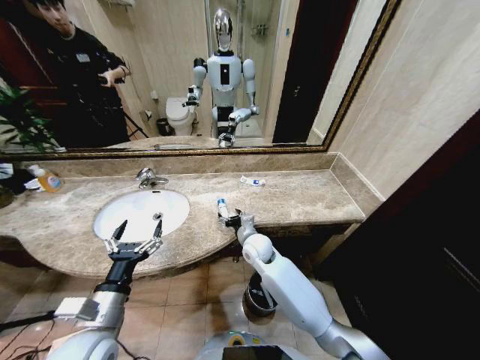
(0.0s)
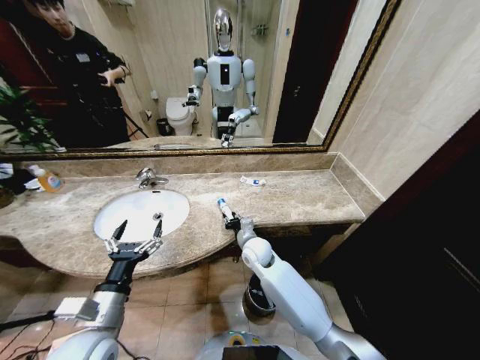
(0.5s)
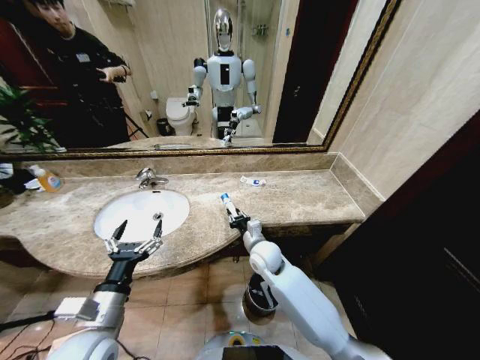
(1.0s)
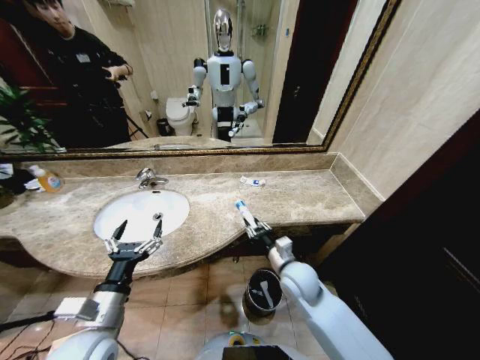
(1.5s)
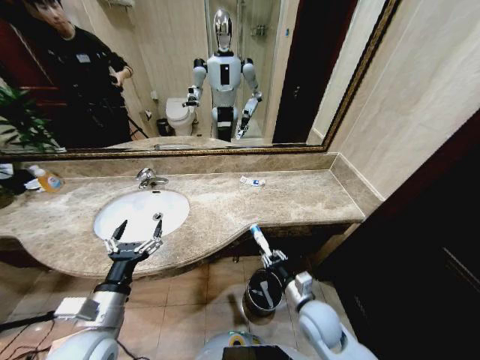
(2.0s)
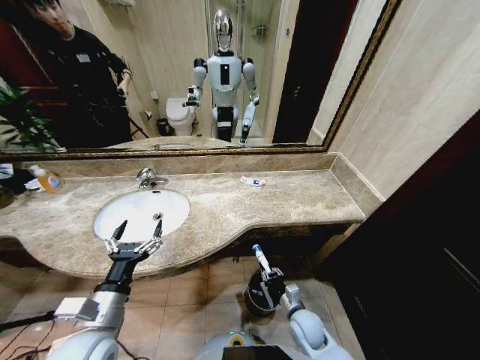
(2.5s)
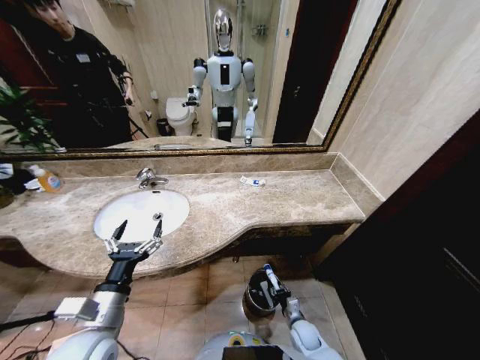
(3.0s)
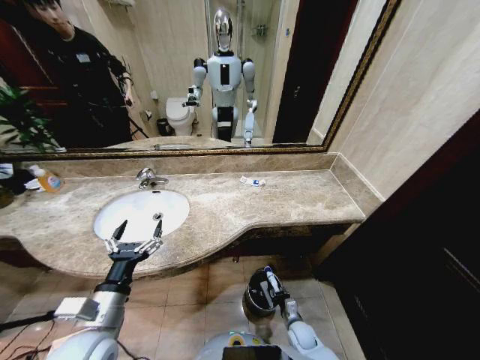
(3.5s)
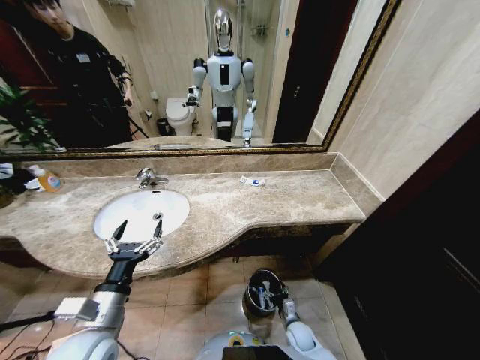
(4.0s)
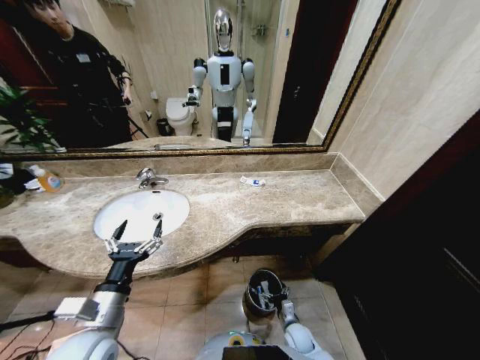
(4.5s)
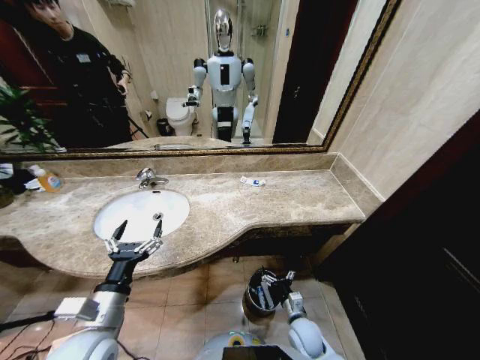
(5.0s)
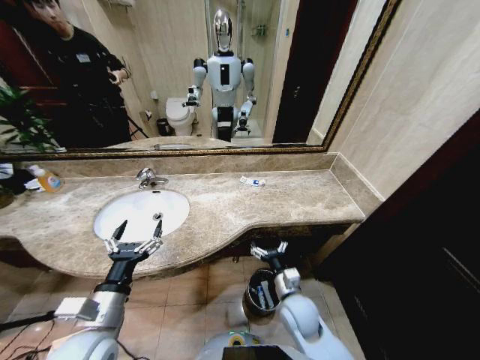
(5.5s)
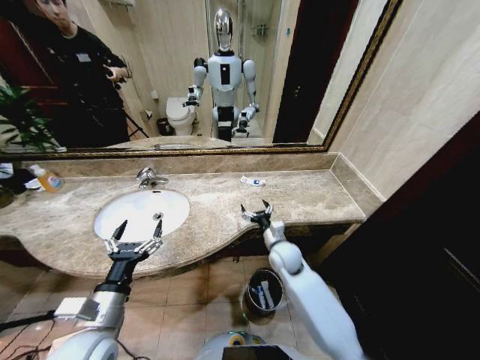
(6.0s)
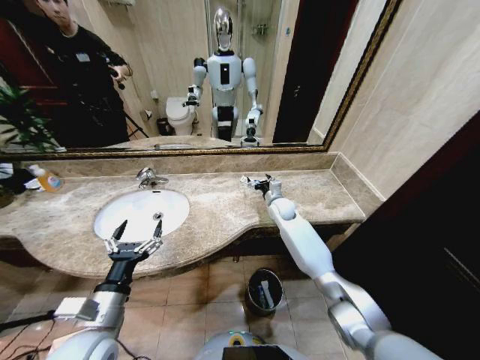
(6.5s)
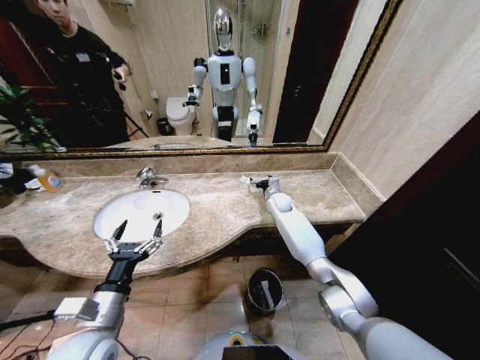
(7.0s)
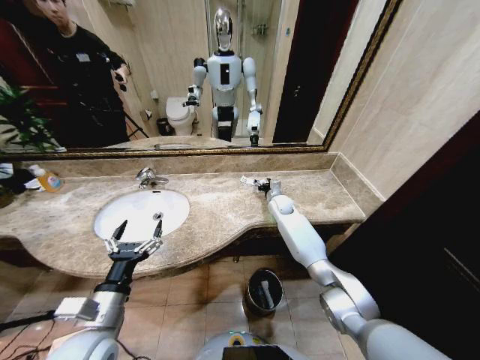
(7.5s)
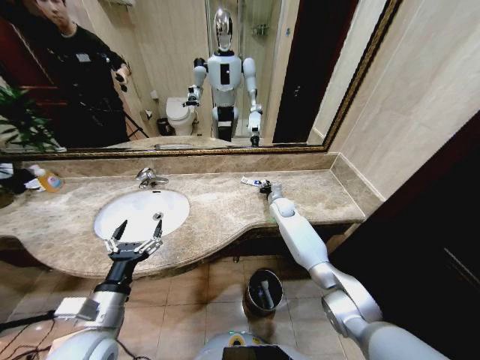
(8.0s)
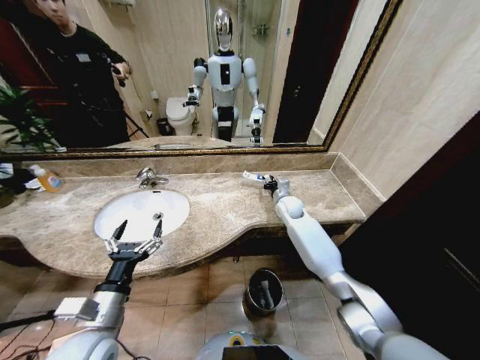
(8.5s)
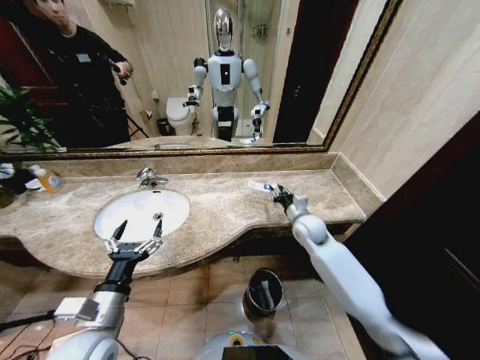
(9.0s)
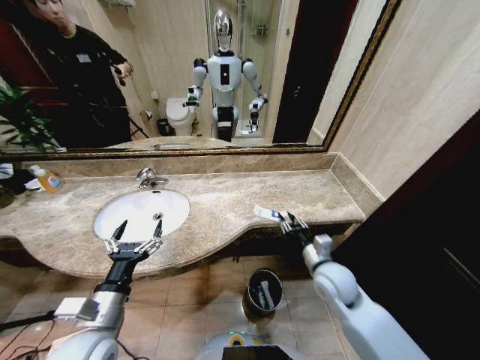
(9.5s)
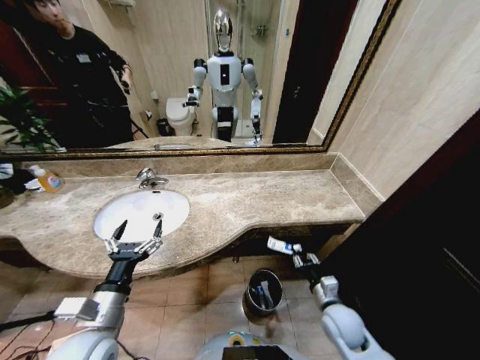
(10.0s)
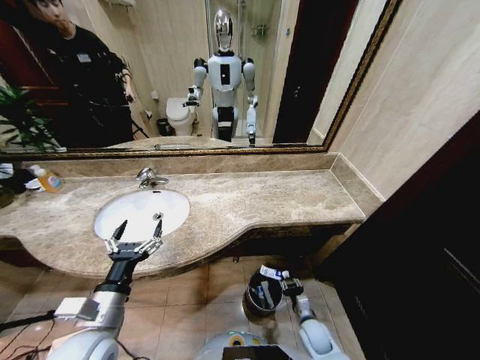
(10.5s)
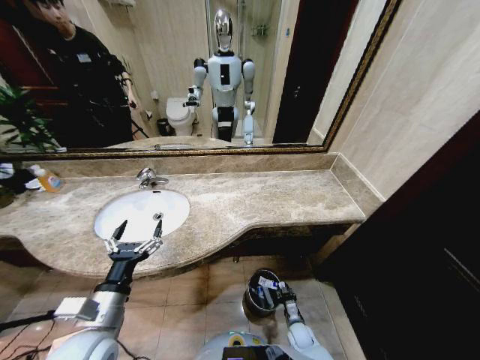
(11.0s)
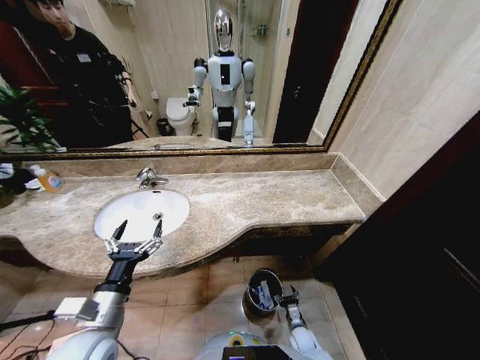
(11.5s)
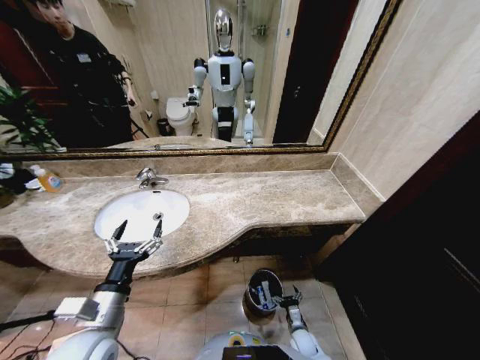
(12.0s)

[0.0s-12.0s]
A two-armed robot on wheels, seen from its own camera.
Task of the whole recording: Pick up the trash from the sink and place it in the trash bin.
0.0s to 2.0s: The right gripper shifts roughly 25 cm backward and to the right, and closes up.
2.0s to 4.0s: The right gripper is displaced downward by some 25 cm, and opens up.
4.0s to 6.0s: The right gripper moves upward and forward, about 35 cm.
6.0s to 8.0s: The right gripper goes approximately 20 cm forward, and closes.
8.0s to 10.0s: The right gripper is displaced backward by about 35 cm.
10.0s to 12.0s: The right gripper shifts some 25 cm downward, and opens up.

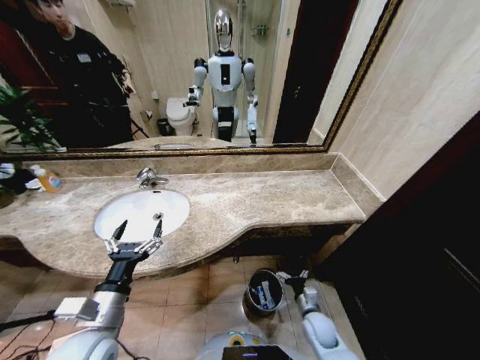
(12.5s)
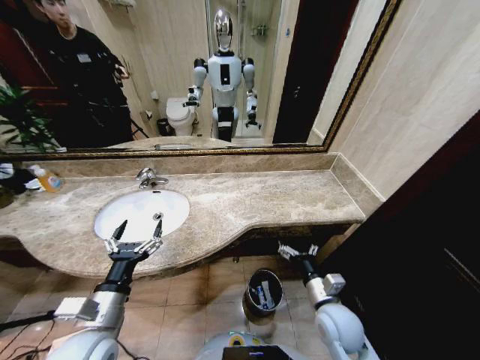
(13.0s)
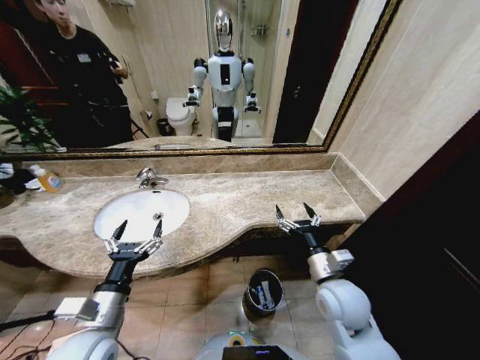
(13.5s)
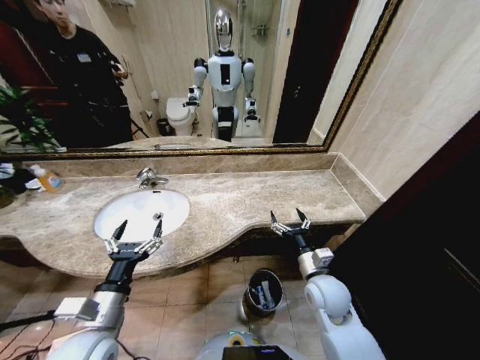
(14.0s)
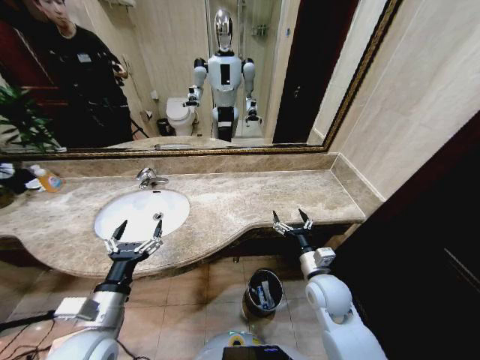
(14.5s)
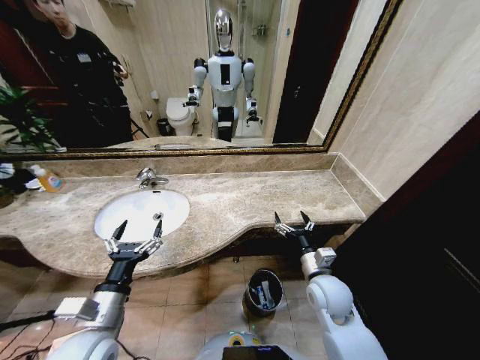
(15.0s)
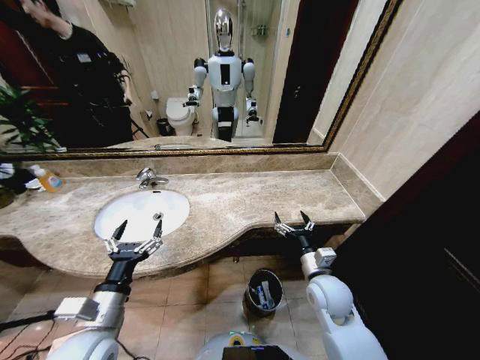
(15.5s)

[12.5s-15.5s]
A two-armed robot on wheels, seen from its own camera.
Task of the whole recording: Pick up the trash from the sink and place it in the trash bin.
12.5s to 14.0s: The right gripper moves upward, roughly 20 cm.
14.0s to 15.5s: Both grippers stay about where they are.

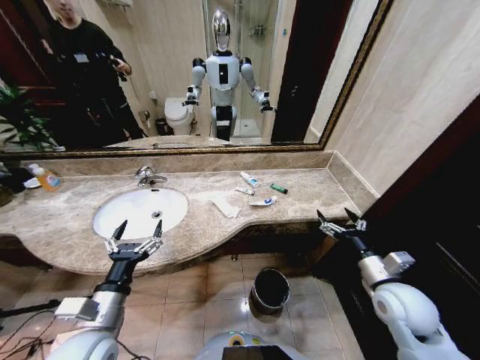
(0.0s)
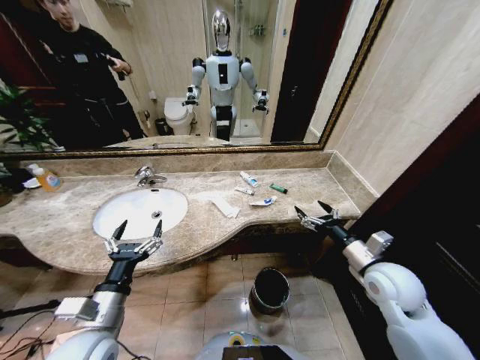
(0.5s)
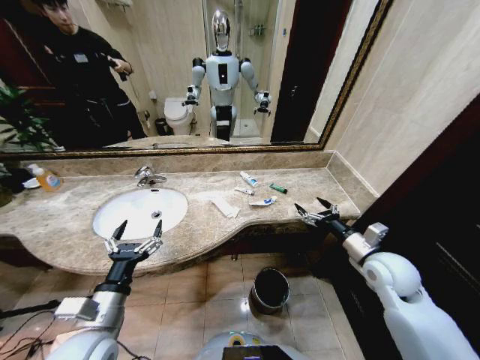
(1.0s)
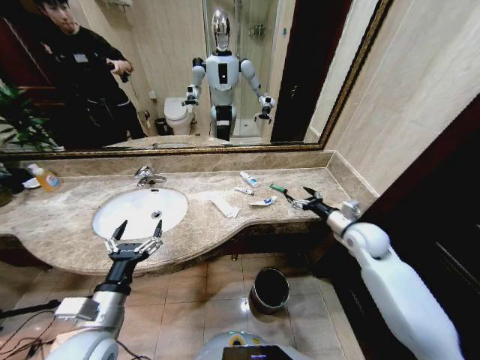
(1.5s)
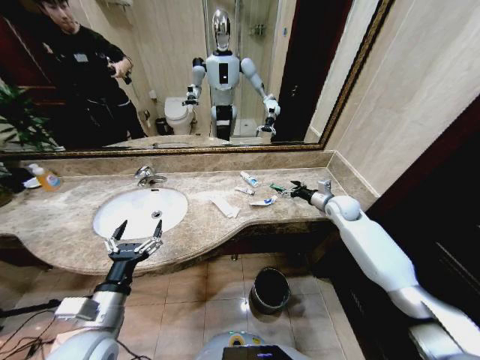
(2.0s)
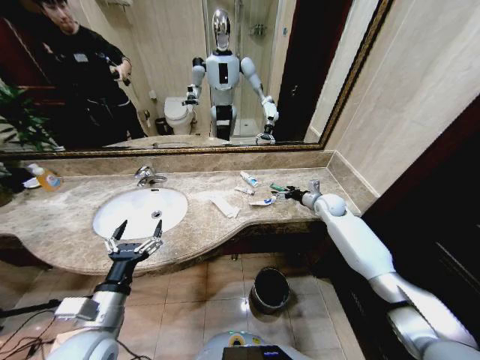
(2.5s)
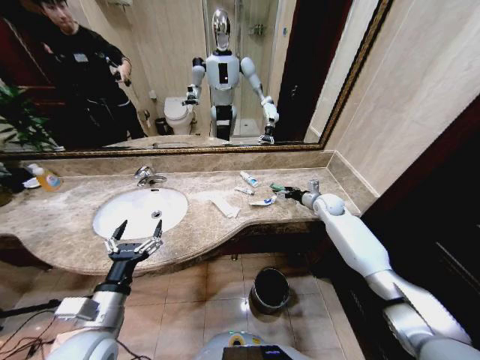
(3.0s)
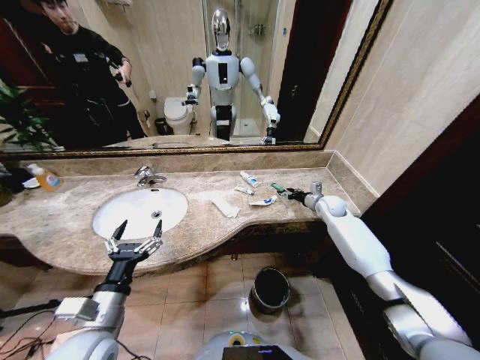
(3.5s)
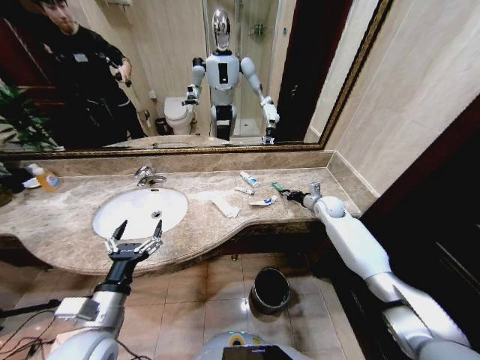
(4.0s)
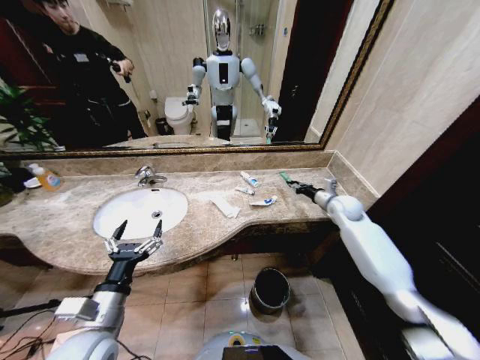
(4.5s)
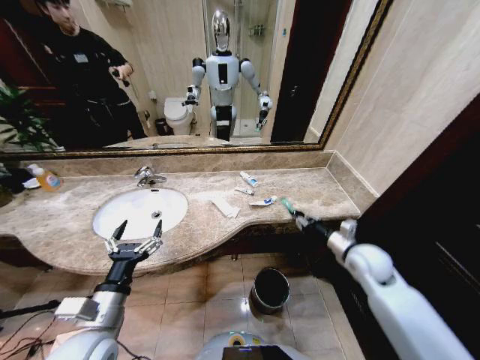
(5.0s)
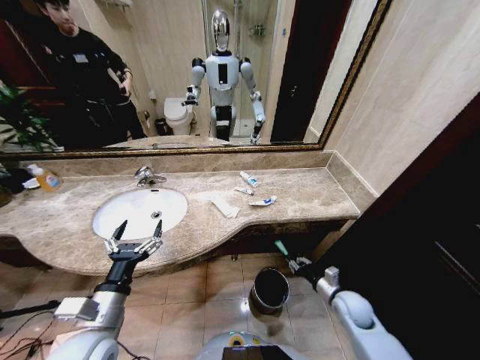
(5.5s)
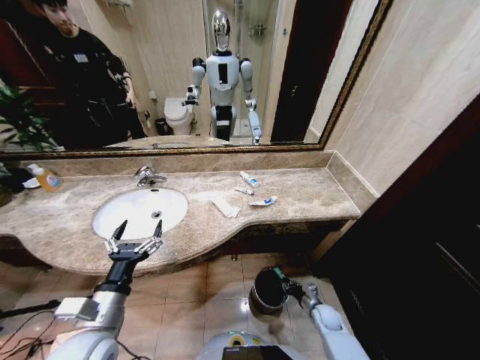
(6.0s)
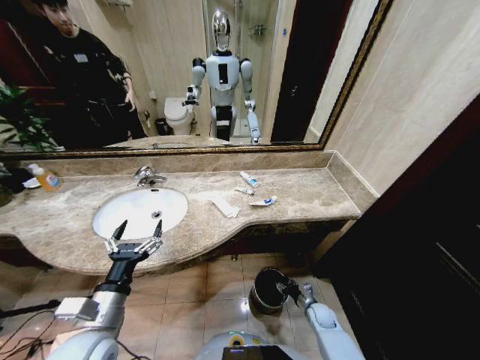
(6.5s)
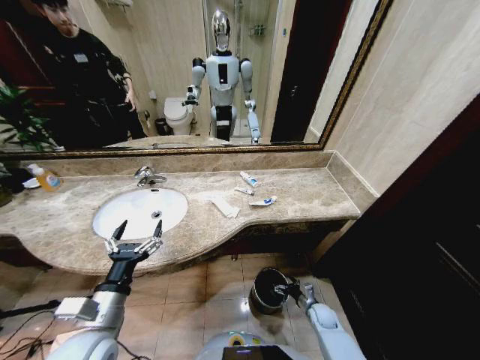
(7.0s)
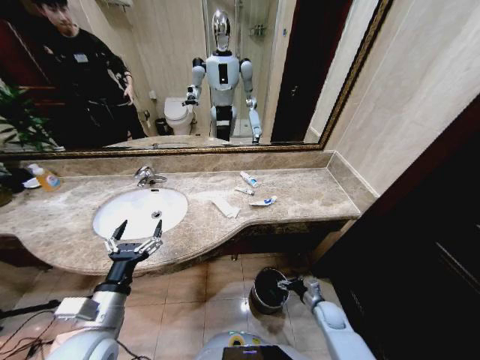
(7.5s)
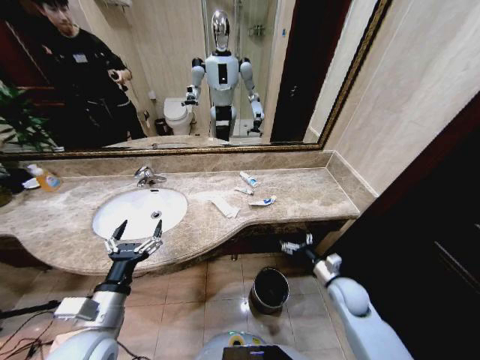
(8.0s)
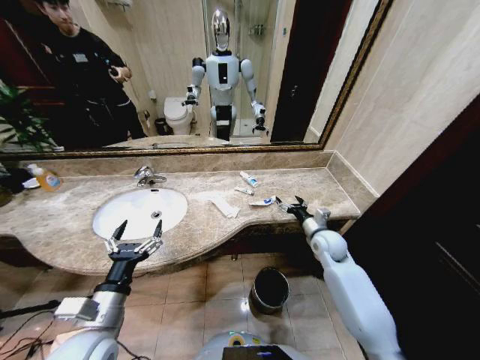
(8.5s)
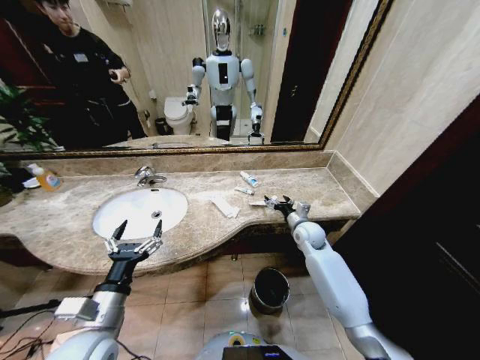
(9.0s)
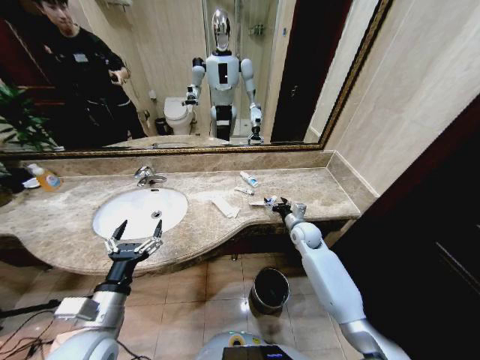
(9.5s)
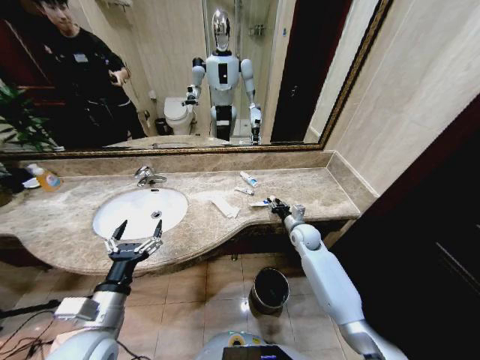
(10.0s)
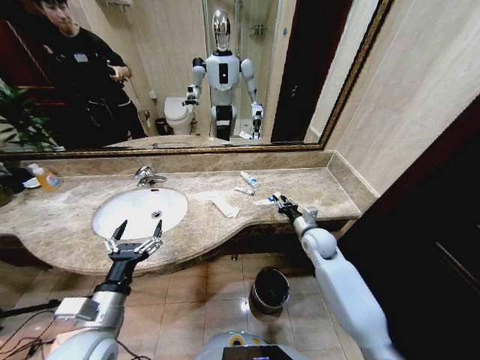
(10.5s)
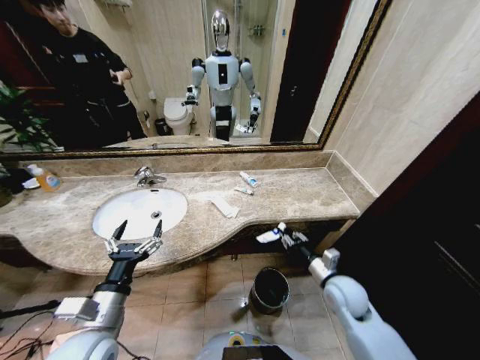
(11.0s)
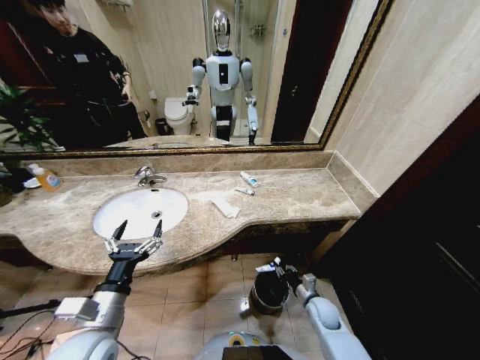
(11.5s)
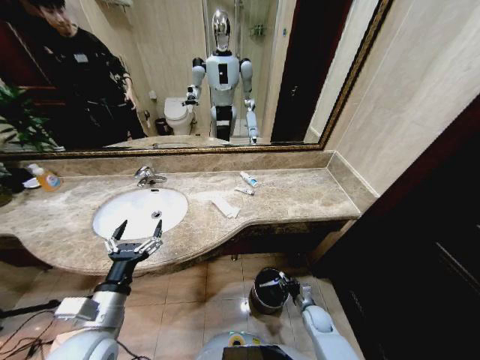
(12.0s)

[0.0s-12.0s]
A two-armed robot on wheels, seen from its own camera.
Task of the whole recording: Pick up the trash from the sink and place it in the trash bin.
2.0s to 4.0s: The right gripper shifts by some 5 cm, and closes.
4.0s to 6.0s: The right gripper goes roughly 40 cm downward and backward.
6.0s to 8.0s: The right gripper moves upward, some 20 cm, and opens its fingers.
8.0s to 10.0s: The right gripper travels forward by about 20 cm, and closes.
10.0s to 12.0s: The right gripper heads downward and backward, covering about 30 cm.
